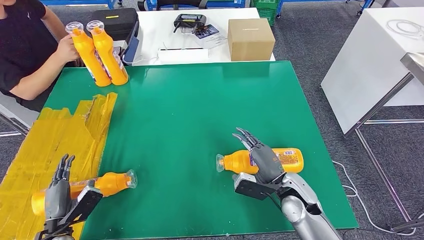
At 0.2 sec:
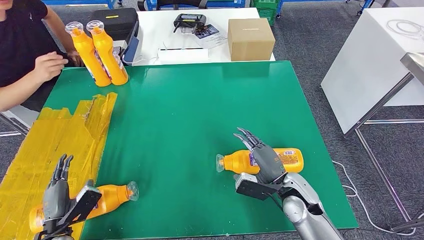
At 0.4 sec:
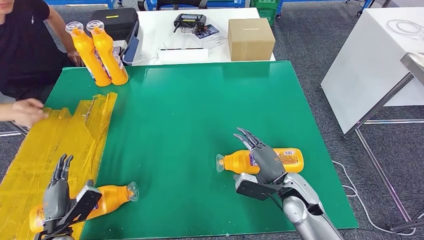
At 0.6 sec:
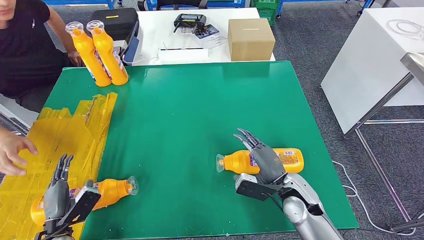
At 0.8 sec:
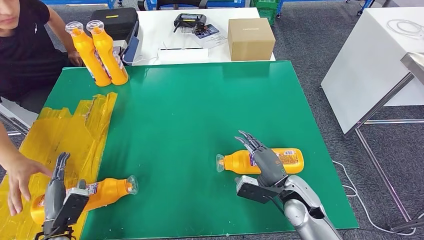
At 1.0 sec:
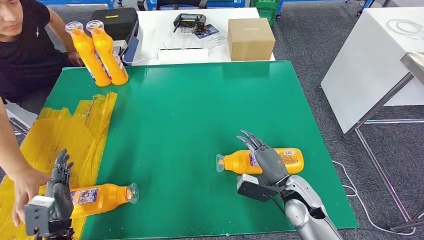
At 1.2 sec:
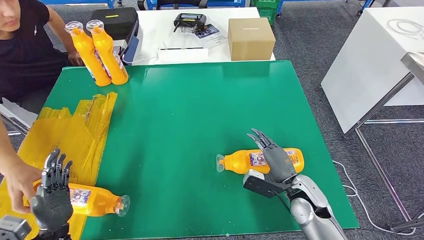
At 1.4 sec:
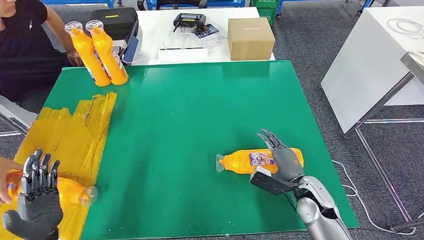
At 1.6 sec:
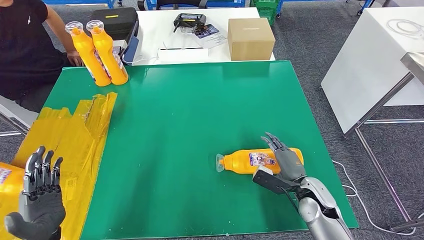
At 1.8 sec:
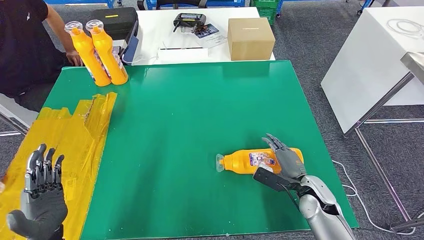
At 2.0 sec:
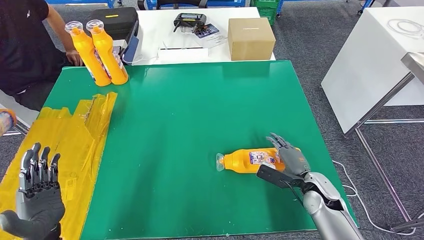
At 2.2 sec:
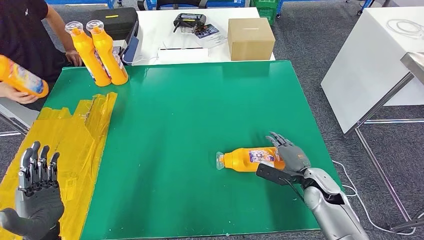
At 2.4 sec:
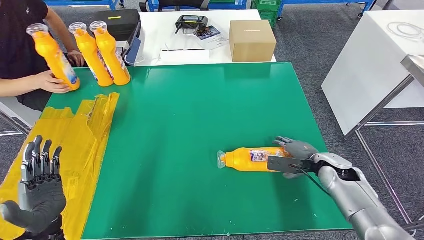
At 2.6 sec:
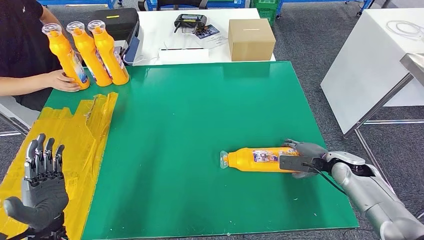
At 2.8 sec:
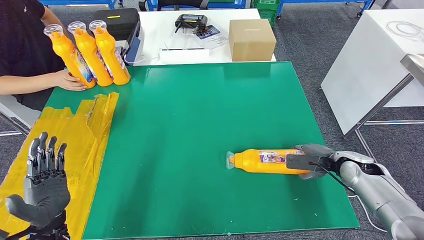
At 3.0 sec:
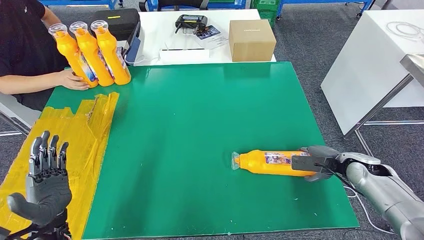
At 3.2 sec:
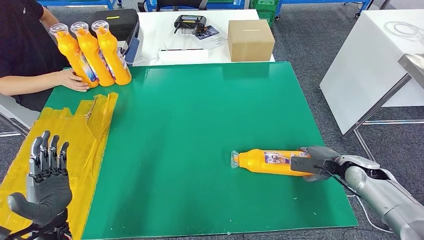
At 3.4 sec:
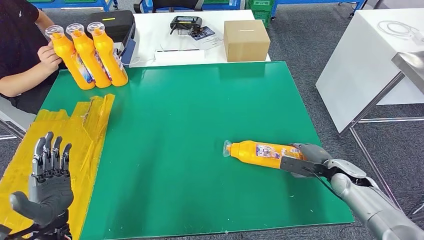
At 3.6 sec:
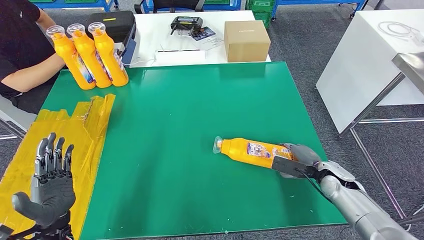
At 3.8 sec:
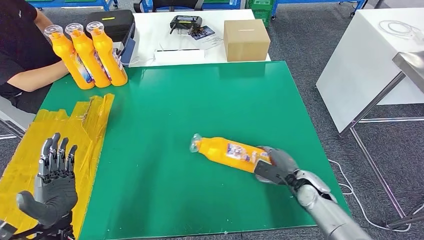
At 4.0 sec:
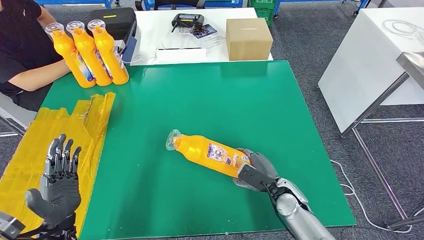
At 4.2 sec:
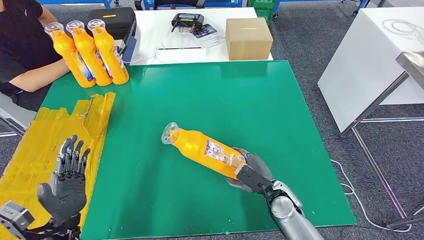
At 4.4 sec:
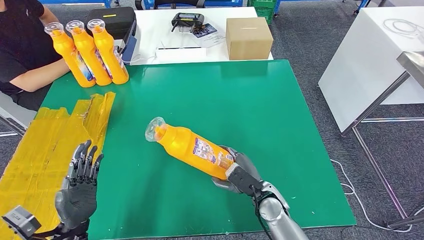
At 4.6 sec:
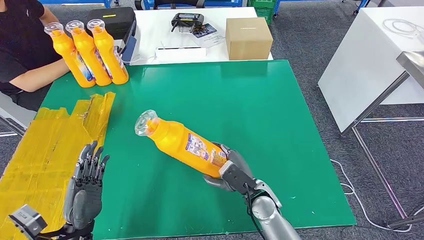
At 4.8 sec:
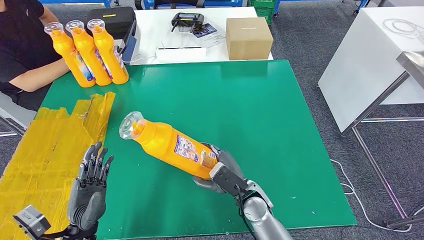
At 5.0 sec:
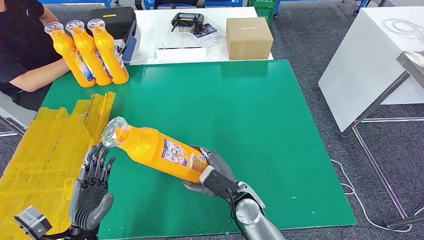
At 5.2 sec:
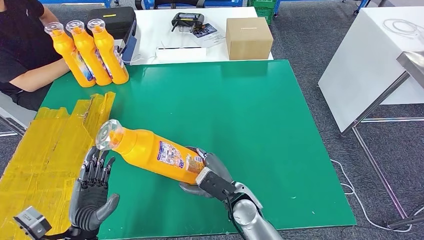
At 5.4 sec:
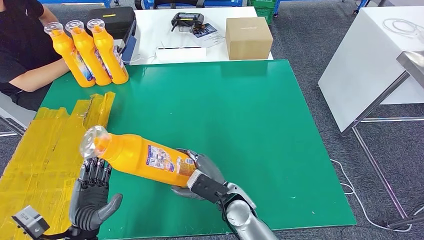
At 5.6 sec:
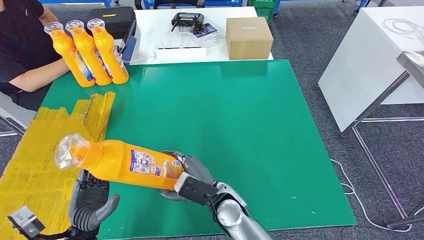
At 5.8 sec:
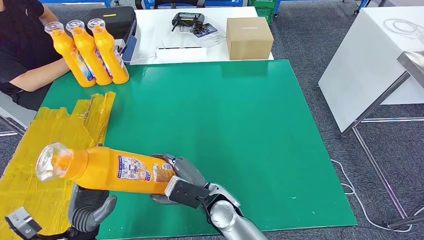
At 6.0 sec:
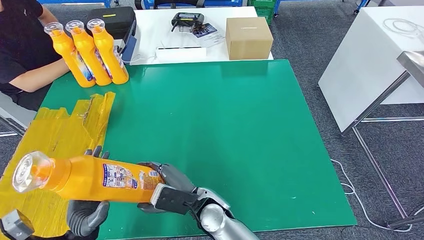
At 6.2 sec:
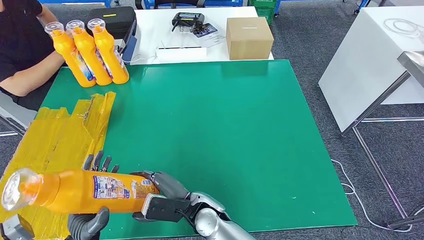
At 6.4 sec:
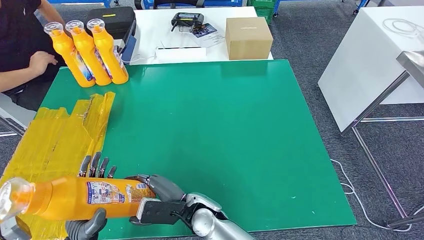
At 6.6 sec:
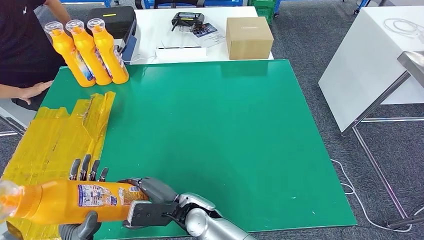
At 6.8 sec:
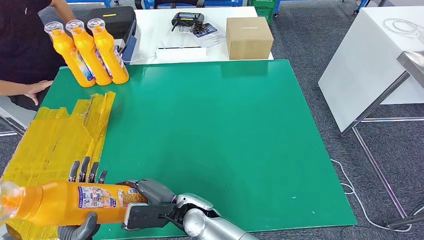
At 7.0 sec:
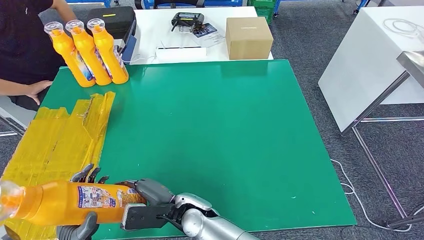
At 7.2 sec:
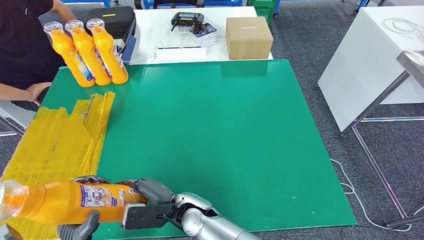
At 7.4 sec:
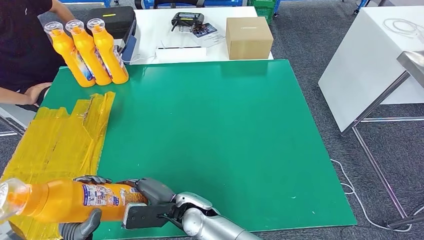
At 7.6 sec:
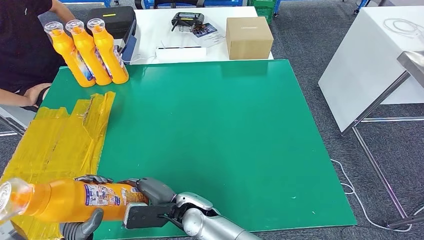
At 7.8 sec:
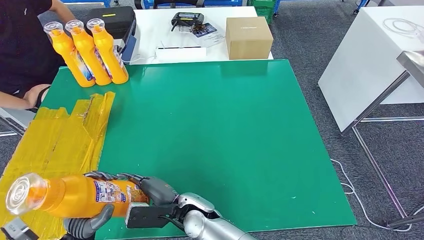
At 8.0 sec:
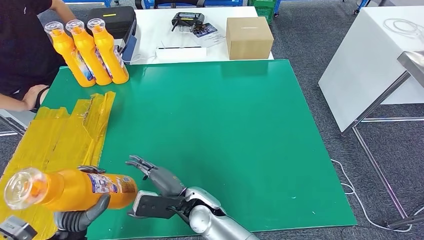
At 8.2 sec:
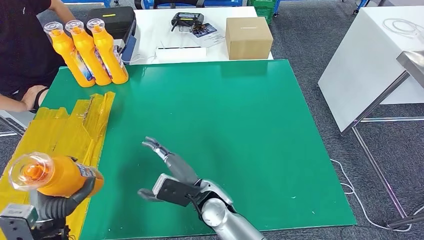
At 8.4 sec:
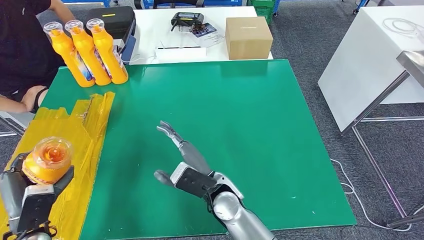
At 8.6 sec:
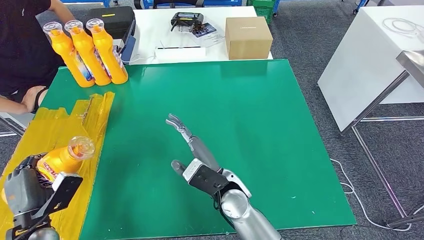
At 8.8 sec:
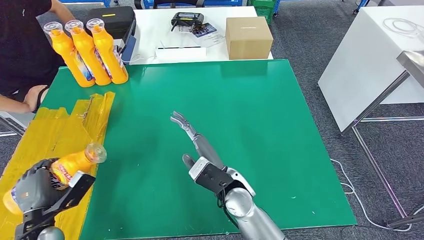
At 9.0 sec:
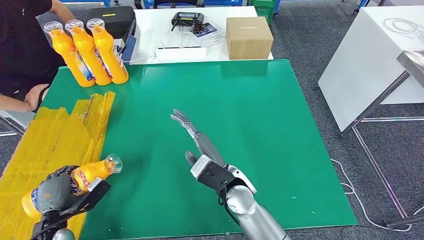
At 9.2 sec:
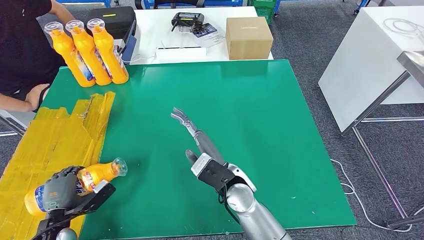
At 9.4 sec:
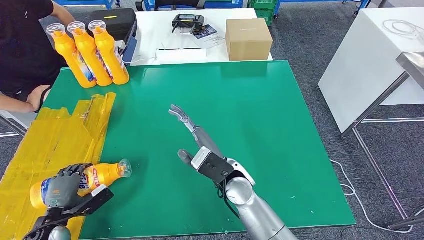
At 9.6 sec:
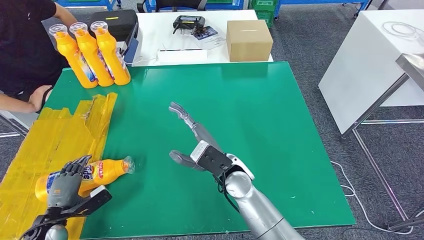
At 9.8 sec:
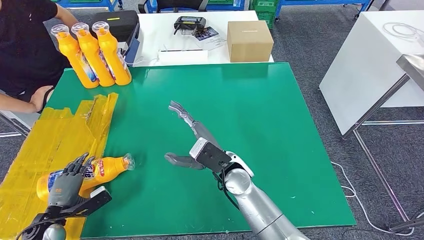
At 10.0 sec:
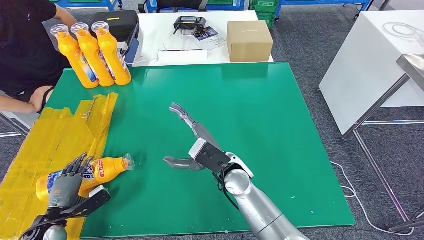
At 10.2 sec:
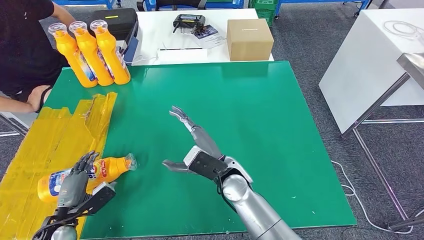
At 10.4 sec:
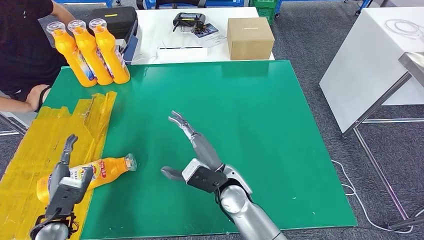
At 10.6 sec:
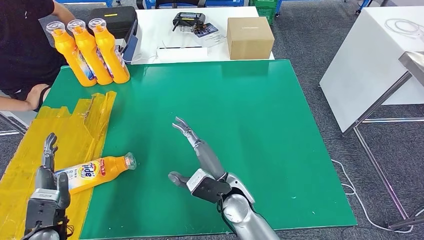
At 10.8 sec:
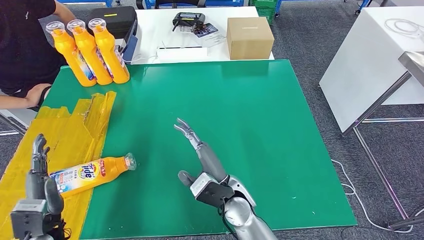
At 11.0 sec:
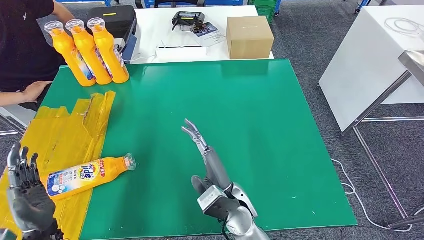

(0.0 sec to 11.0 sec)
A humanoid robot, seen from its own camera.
Step, 0.4 sec - 5.8 sec: Pick up the bottle from the table.
Step, 6.0 sec - 11.0 sec: Flip the bottle to face forward.
0.0 sec - 1.6 sec: The right hand moves to the right, approximately 5 cm. Meanwhile the left hand heads upward, covering some 10 cm.
4.8 sec - 6.2 sec: The right hand travels to the left by some 15 cm.
6.2 sec - 7.8 sec: The hands move only a little.
